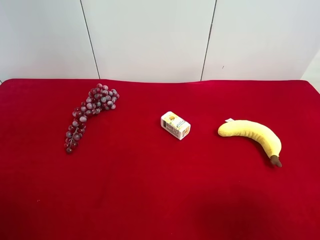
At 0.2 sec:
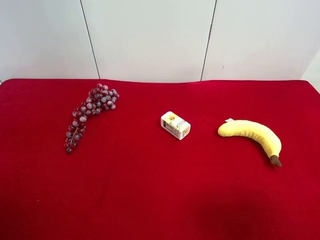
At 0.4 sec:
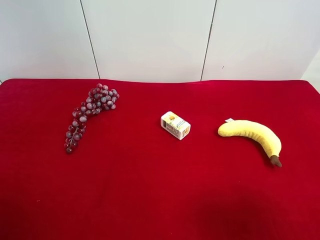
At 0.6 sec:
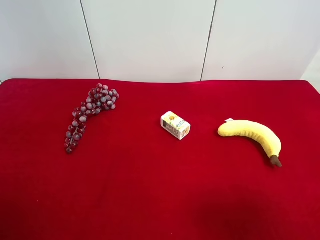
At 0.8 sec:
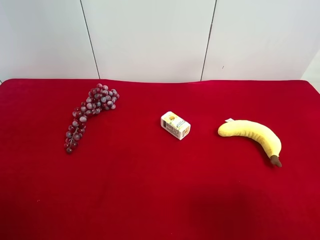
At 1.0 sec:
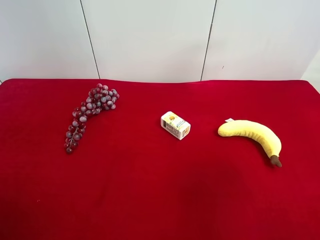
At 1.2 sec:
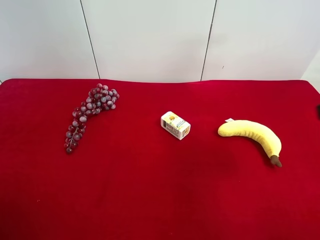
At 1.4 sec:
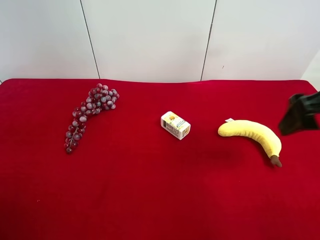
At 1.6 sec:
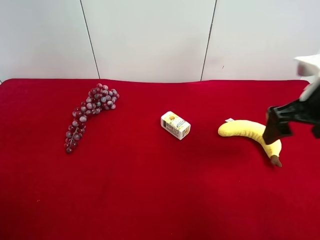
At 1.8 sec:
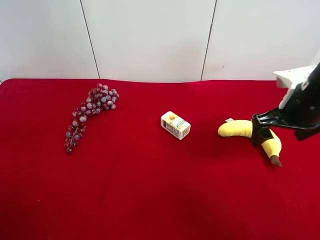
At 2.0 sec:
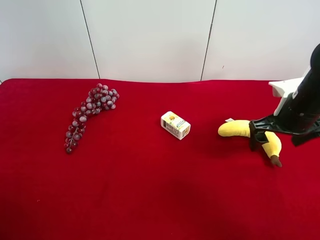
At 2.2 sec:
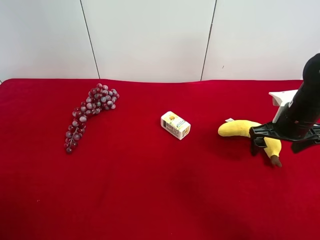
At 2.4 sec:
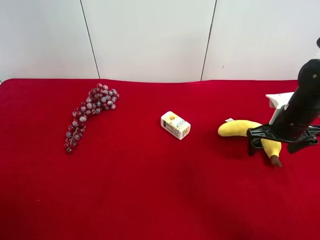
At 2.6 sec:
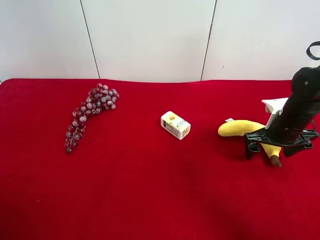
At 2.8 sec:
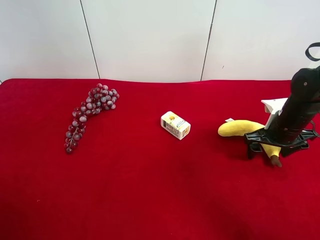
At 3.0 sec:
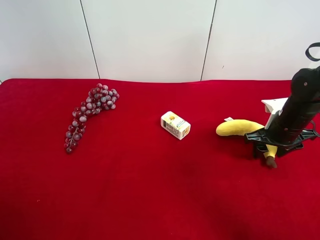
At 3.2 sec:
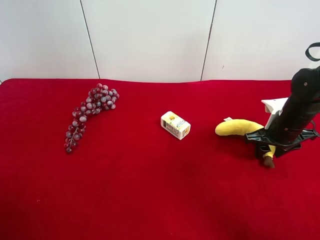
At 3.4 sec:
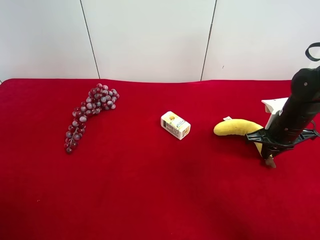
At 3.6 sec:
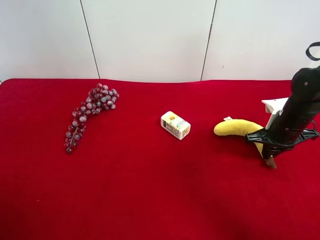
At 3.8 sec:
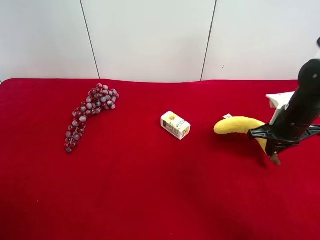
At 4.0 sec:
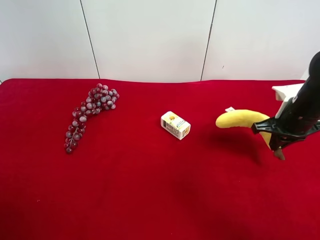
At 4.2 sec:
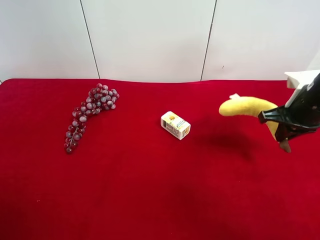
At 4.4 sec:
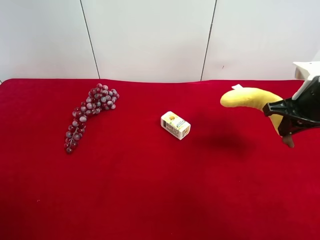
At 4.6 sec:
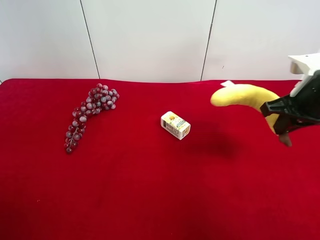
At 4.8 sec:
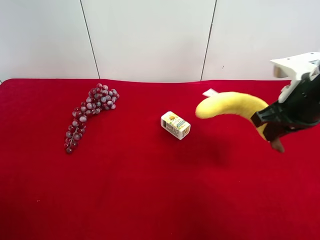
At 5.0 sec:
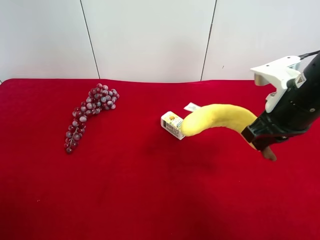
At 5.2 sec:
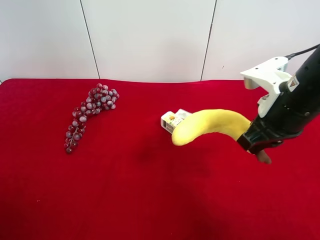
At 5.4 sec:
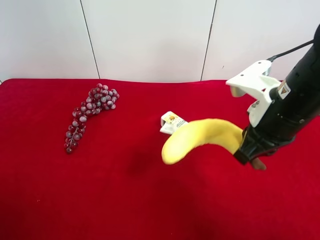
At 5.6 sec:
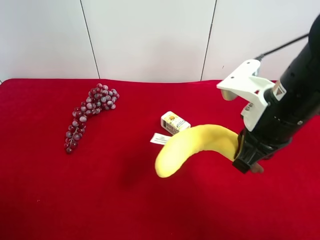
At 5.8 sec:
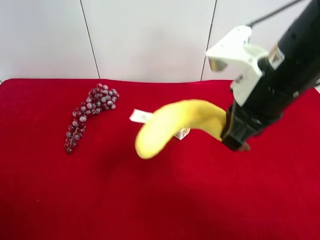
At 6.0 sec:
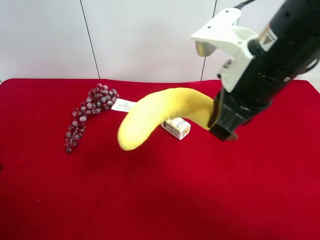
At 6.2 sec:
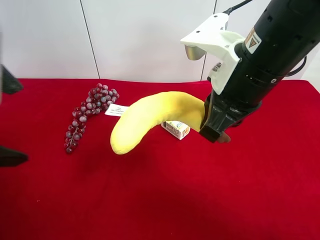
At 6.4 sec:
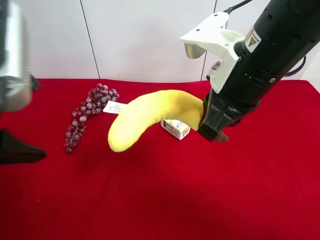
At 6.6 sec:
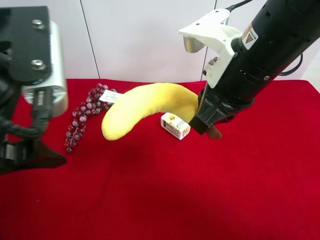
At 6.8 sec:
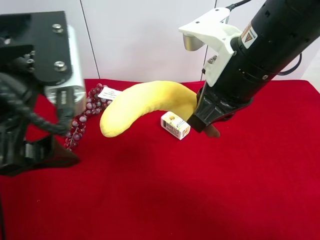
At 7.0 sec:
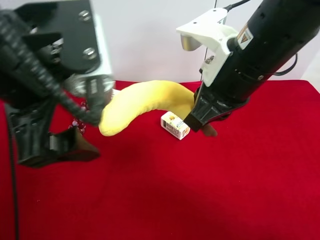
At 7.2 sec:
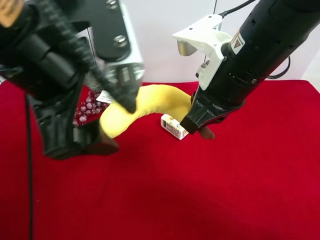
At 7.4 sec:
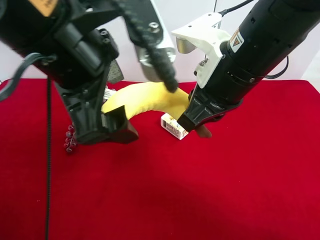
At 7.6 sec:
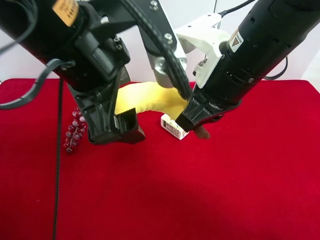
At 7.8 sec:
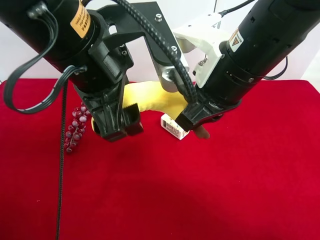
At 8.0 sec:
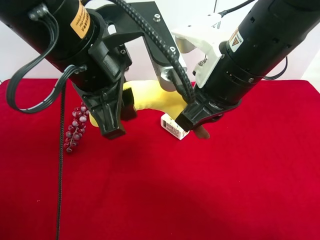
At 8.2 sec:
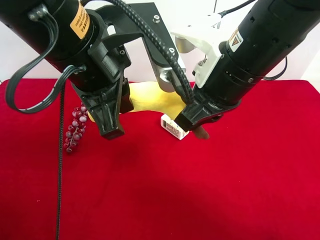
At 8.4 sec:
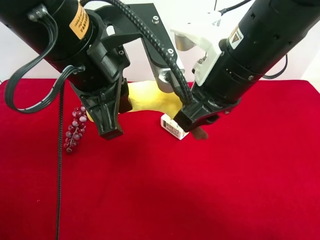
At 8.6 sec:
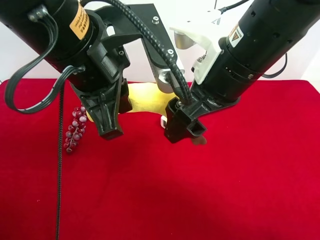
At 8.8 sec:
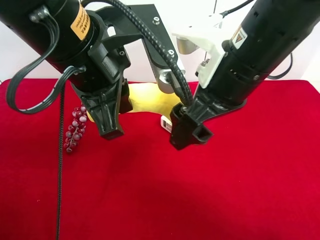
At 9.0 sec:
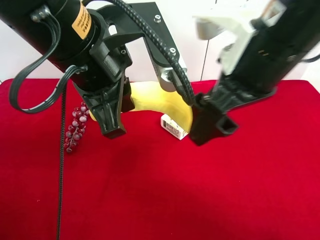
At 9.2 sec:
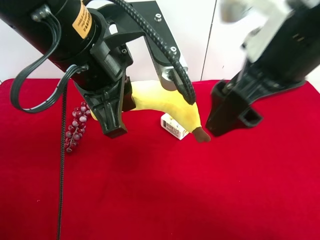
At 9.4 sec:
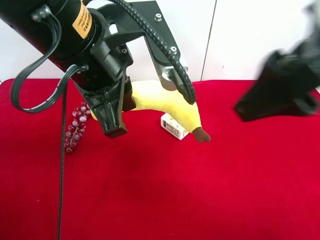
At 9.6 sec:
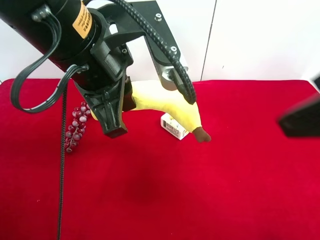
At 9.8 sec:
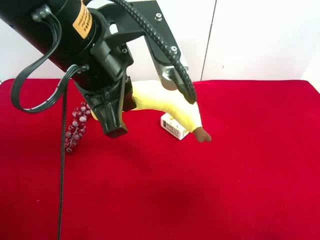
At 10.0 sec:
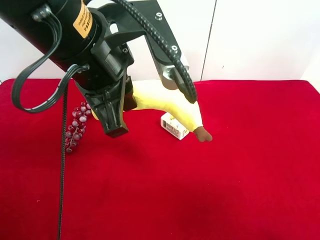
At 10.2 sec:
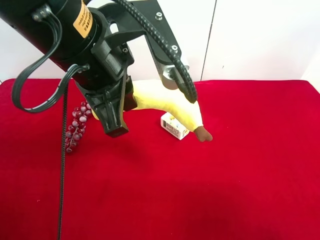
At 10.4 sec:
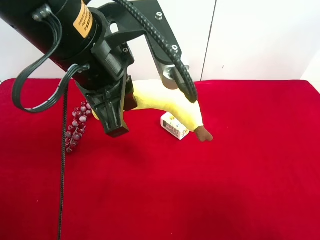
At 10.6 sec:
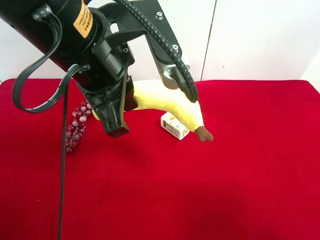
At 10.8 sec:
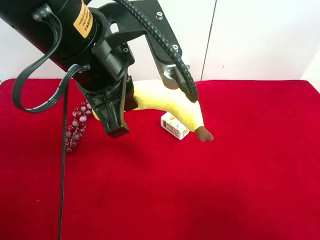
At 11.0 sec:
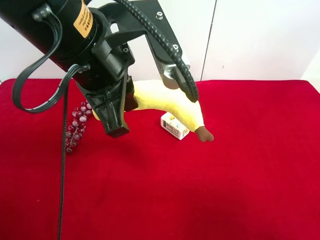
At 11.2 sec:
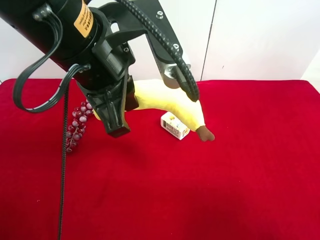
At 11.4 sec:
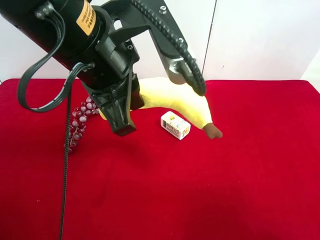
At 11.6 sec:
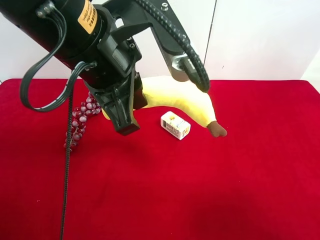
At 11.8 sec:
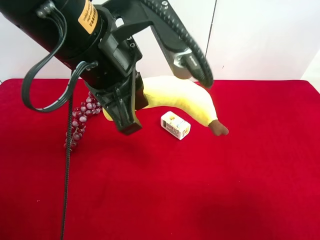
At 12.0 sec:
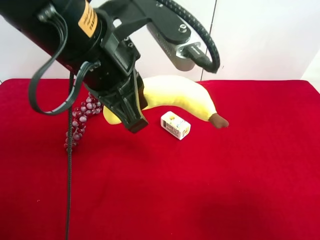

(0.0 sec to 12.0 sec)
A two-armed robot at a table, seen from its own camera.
Task of the whole recording: use the right gripper to pick up the item and transfer it from the right gripper to the left gripper.
Step, 0.0 sec - 3.4 sec: Use the right gripper to grab the plush banana on the right side of the table.
Step, 3.6 sec - 8.6 sec: Pass the plush banana to the left gripper.
0.0 sec - 1.6 sec: The right gripper shifts some 25 cm forward.
1.6 sec - 3.0 sec: The right gripper is displaced downward and forward by approximately 15 cm, and closes its fingers.
3.0 sec - 4.4 sec: The right gripper shifts roughly 10 cm upward, and closes.
4.4 sec - 6.0 sec: The left gripper shifts some 15 cm forward, to the right and upward. Meanwhile the right gripper travels to the left and upward by roughly 20 cm.
6.0 sec - 7.6 sec: The left gripper travels to the right and forward by approximately 15 cm.
7.6 sec - 9.0 sec: The right gripper shifts by roughly 5 cm, and opens its fingers. The left gripper closes up.
9.0 sec - 10.4 sec: The right gripper is displaced backward and to the right by about 25 cm.

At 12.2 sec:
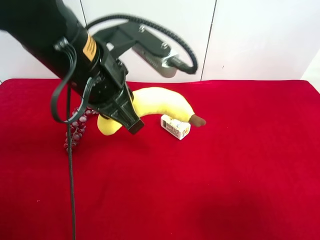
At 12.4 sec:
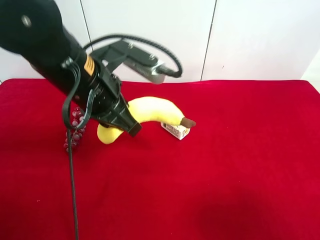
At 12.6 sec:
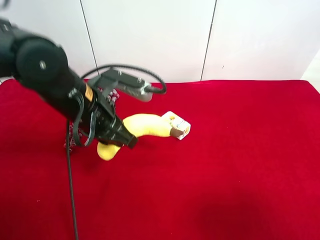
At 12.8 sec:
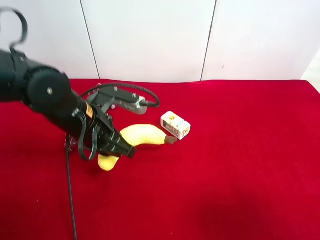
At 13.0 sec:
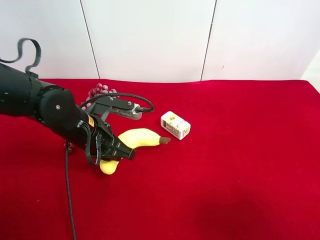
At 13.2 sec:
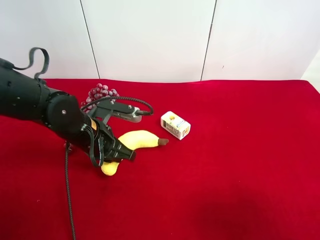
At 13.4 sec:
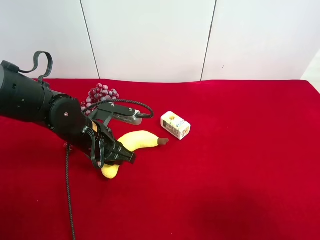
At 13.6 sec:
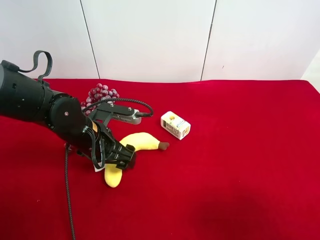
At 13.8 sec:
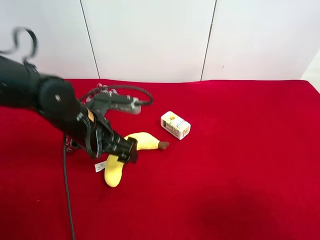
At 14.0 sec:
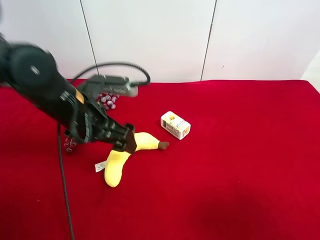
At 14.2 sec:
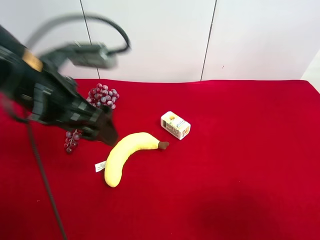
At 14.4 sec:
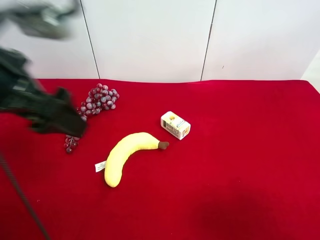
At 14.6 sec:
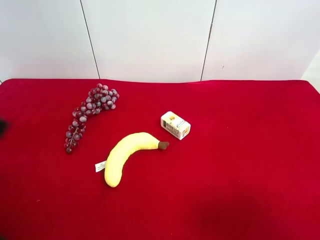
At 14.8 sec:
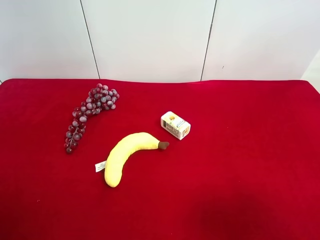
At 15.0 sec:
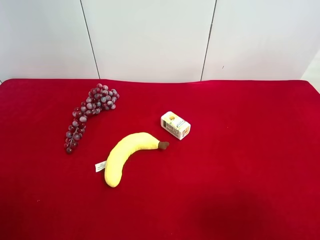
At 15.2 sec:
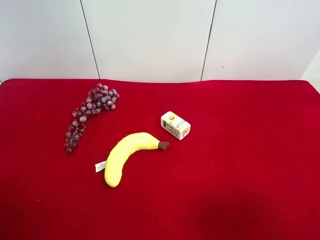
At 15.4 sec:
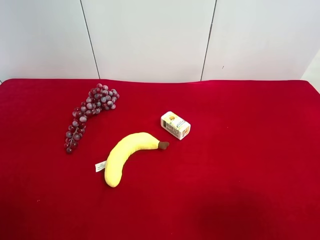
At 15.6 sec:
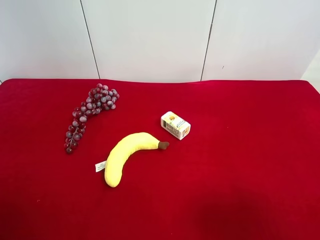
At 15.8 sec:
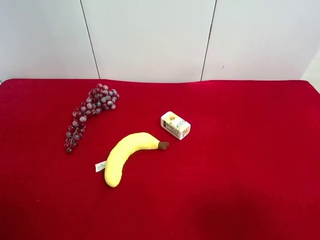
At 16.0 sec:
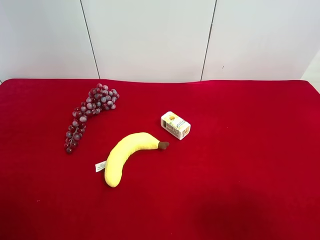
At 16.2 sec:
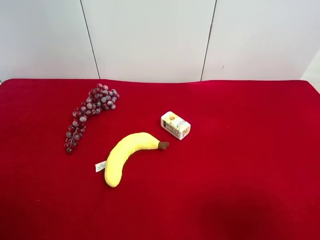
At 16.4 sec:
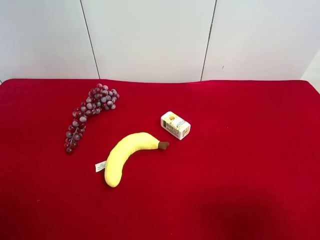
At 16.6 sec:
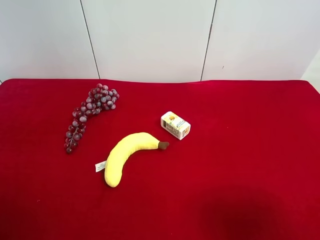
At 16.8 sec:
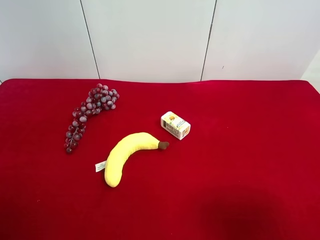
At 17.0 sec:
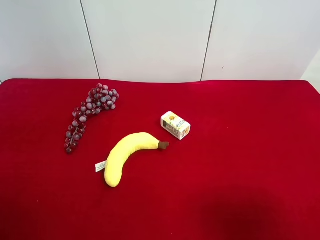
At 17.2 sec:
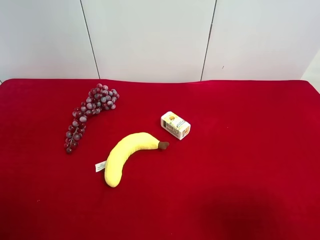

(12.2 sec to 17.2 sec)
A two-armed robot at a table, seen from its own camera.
Task of the whole recording: use the right gripper to pick up the item and transfer it from the right gripper to the left gripper.
12.2 sec - 13.8 sec: The left gripper heads downward, covering roughly 10 cm, and opens up.
13.8 sec - 15.6 sec: The left gripper goes about 35 cm backward, to the left and upward.
